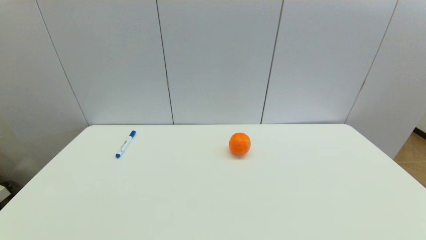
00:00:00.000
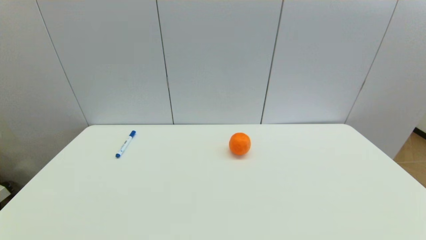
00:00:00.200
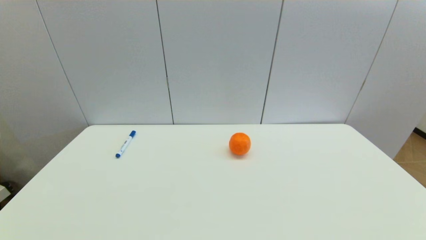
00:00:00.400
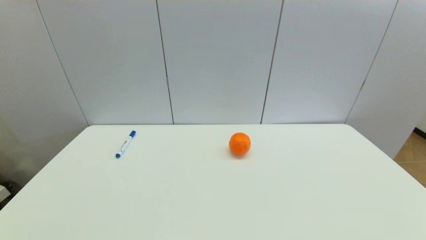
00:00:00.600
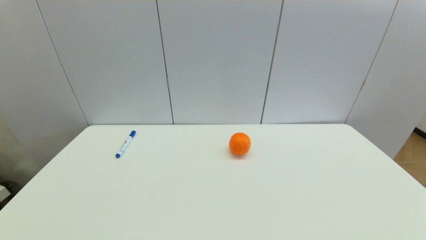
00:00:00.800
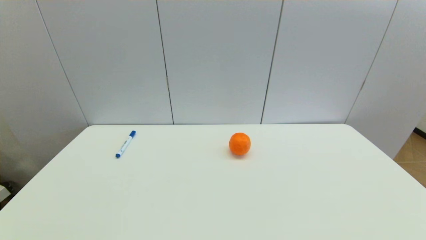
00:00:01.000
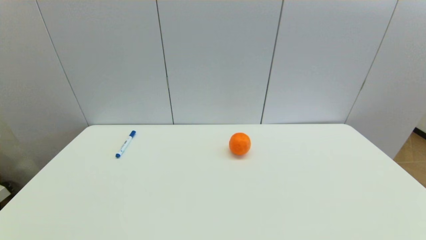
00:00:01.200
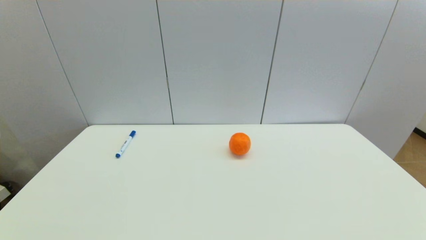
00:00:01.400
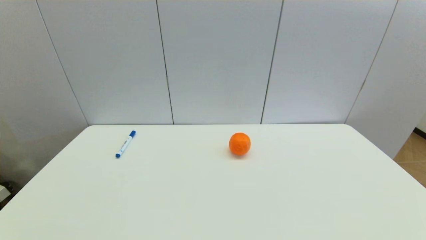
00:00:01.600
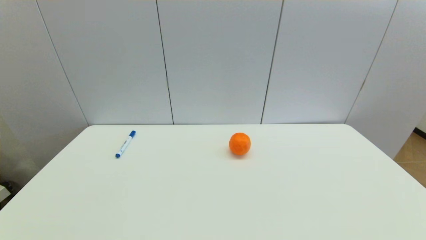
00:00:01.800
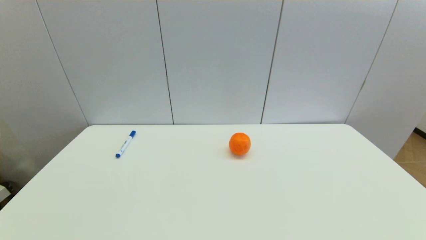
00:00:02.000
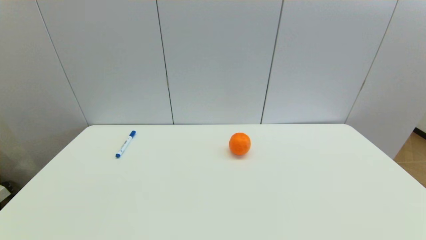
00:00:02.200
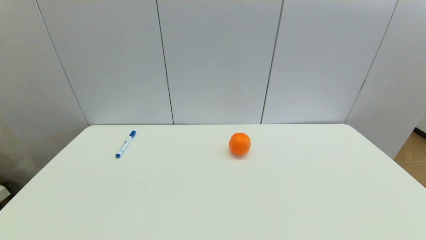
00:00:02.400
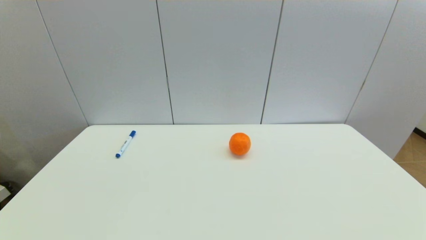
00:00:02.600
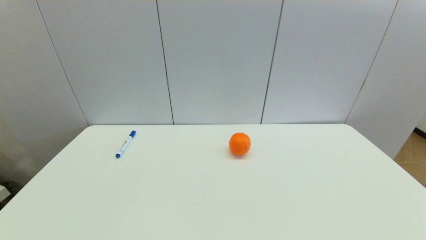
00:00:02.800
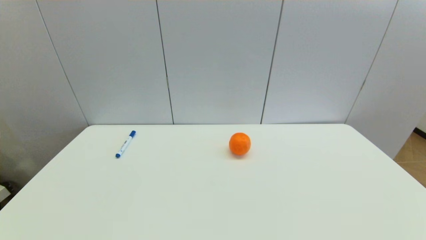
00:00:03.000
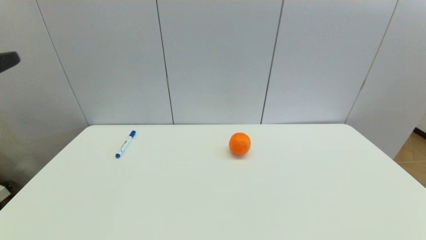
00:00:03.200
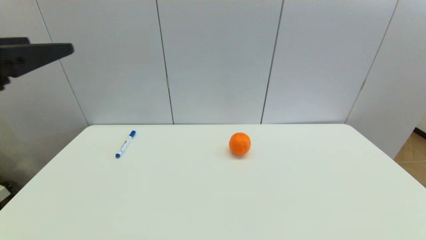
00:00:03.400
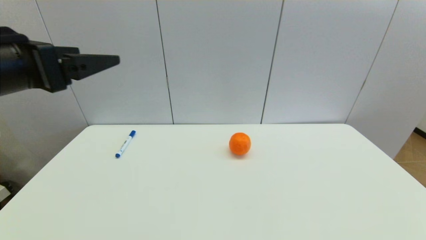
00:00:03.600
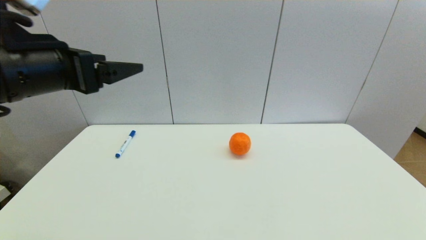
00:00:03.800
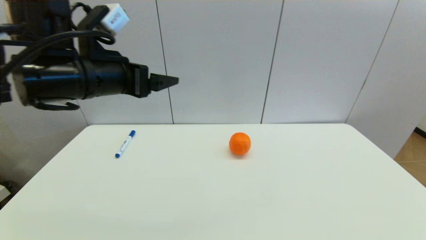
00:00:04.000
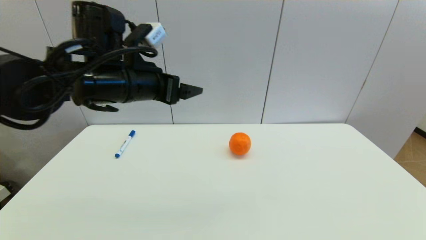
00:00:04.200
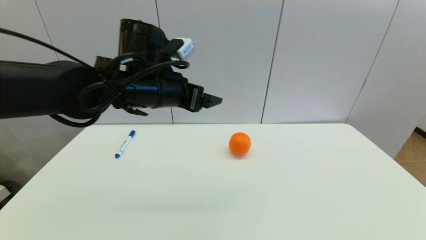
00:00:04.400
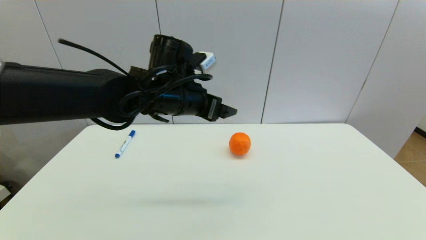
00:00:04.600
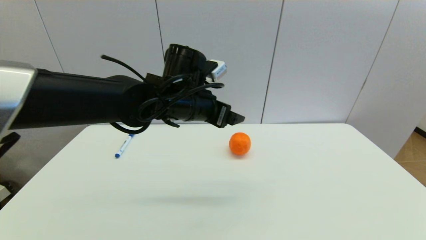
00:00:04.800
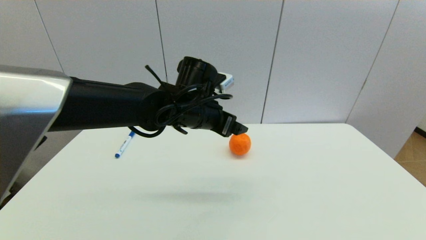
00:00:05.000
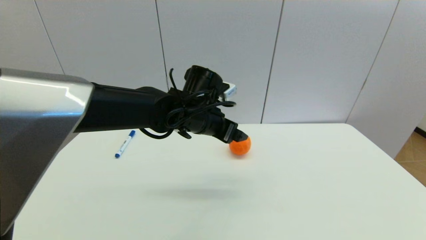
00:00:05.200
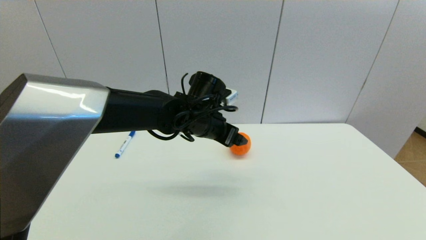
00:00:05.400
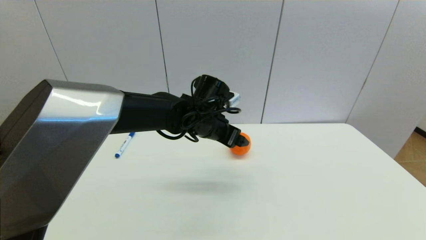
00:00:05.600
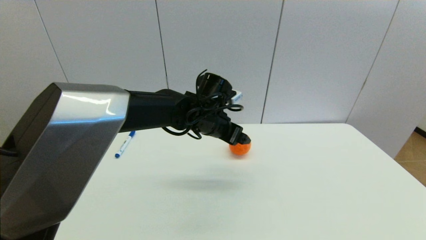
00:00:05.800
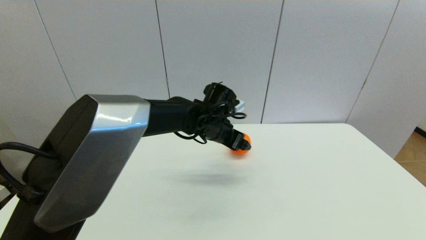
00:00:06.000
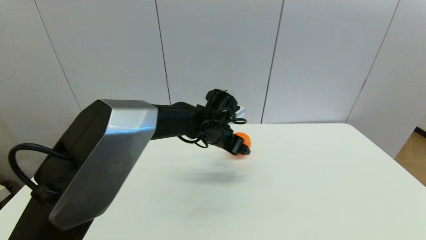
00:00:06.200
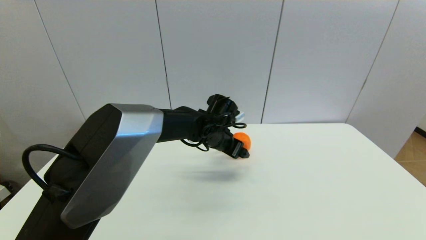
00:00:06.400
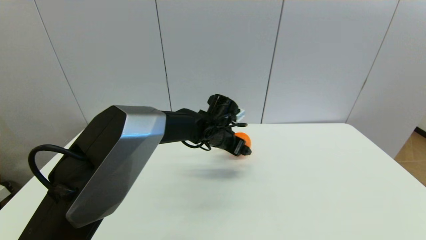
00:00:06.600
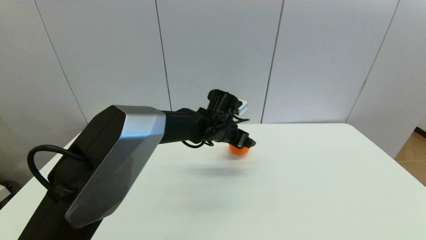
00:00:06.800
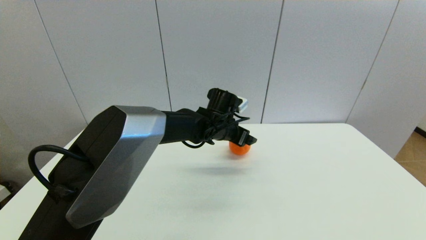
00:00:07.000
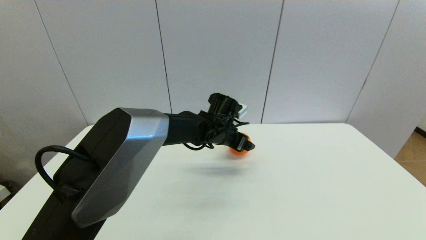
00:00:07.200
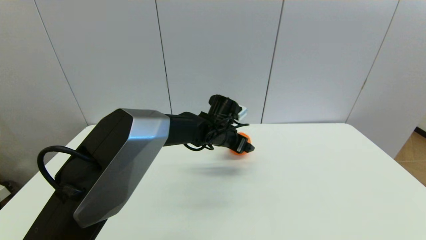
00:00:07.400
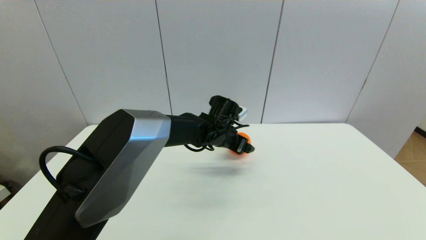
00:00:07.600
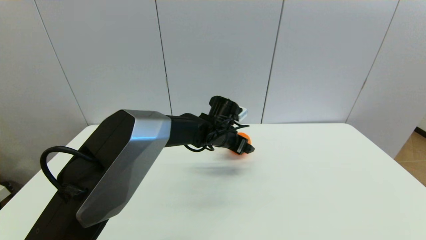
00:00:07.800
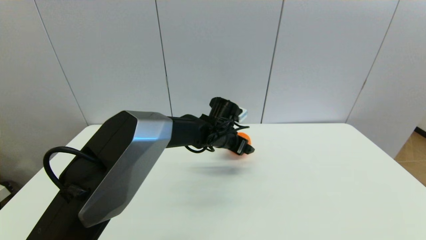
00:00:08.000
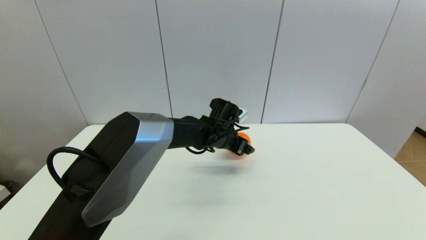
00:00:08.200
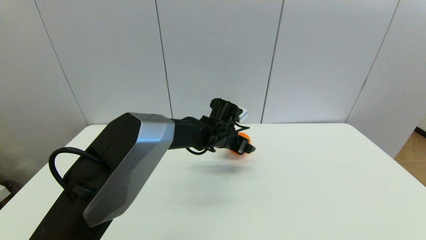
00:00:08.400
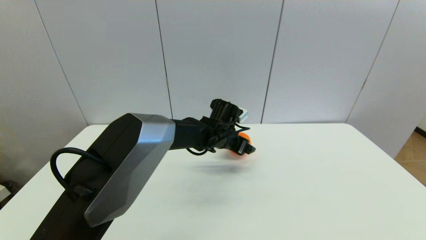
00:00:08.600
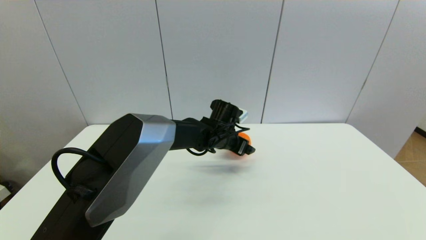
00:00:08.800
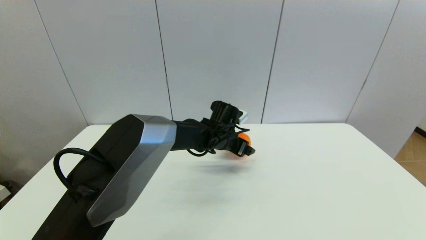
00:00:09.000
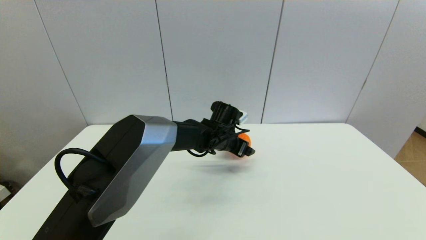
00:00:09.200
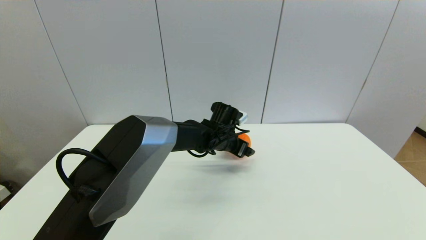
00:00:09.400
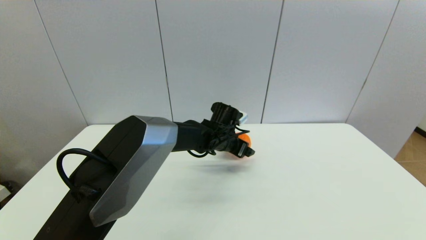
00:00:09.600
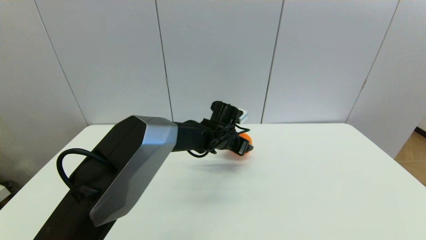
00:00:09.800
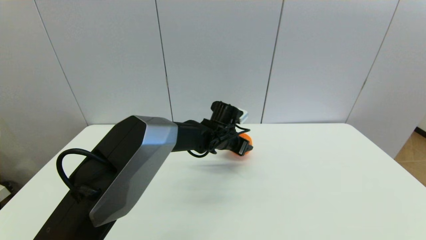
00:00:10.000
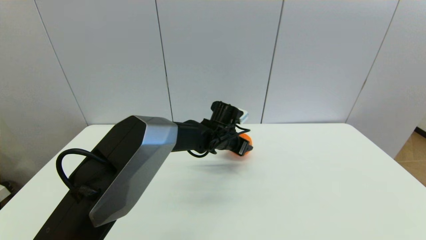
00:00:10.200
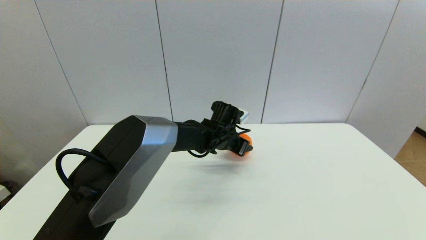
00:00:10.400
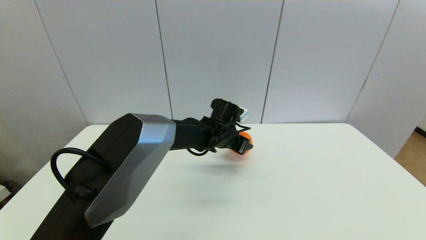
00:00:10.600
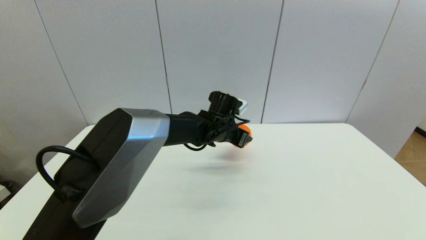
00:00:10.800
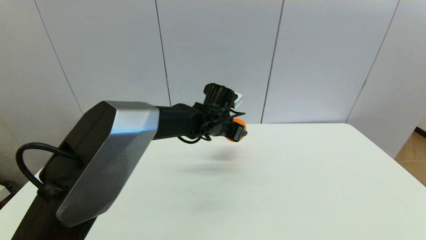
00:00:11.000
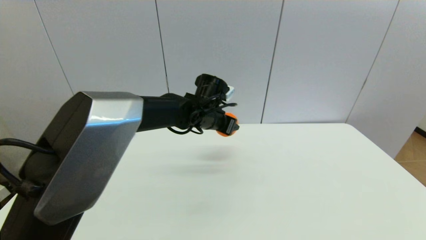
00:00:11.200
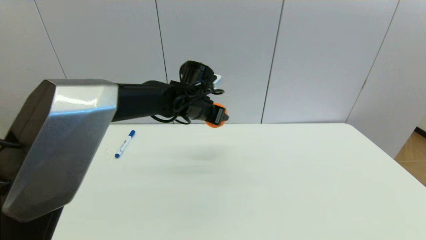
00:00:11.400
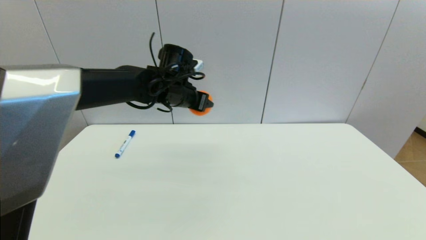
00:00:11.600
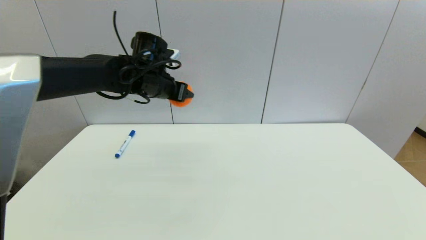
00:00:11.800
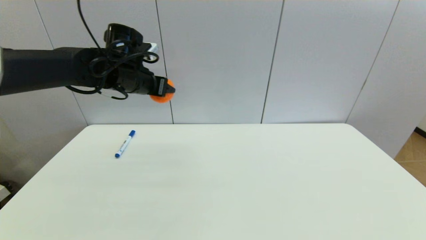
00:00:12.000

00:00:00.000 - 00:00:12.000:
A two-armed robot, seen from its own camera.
Step, 00:00:03.400 - 00:00:10.400: Grasp the orange with left gripper.
00:00:00.000 - 00:00:01.600: The two grippers keep their place.
00:00:03.000 - 00:00:04.400: The left gripper goes about 35 cm forward and to the right.
00:00:04.400 - 00:00:06.000: The left gripper heads downward, to the right and forward, covering approximately 15 cm.
00:00:06.000 - 00:00:07.600: The left gripper ends up some 5 cm from where it was.
00:00:07.600 - 00:00:09.000: The grippers stay close to where they were, moving slightly.
00:00:09.000 - 00:00:10.400: The left gripper closes its fingers.
00:00:10.400 - 00:00:12.000: The left gripper is displaced to the left and upward by approximately 30 cm.

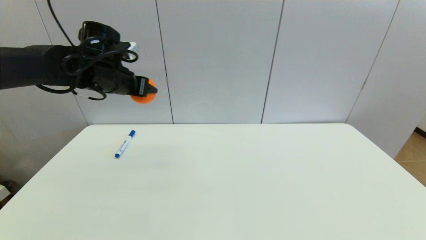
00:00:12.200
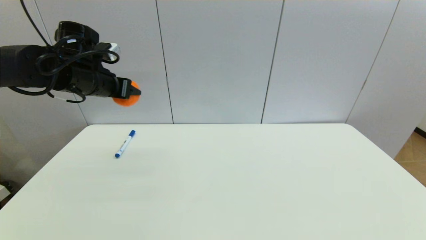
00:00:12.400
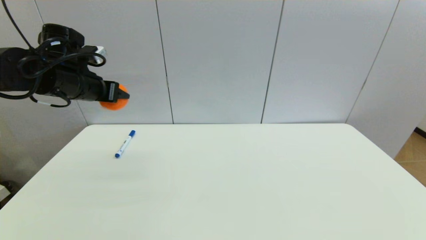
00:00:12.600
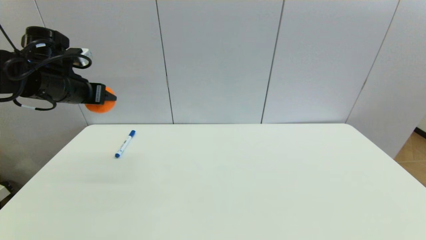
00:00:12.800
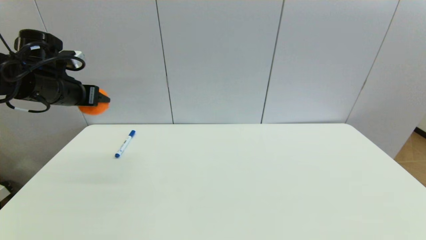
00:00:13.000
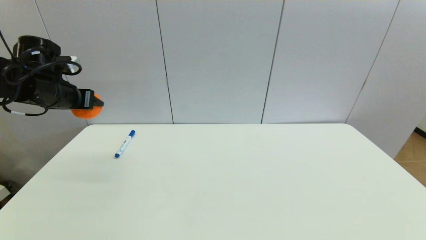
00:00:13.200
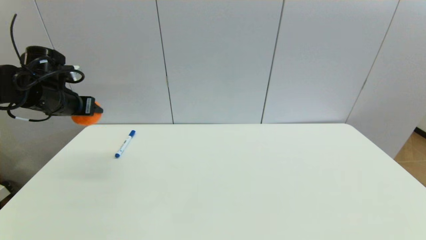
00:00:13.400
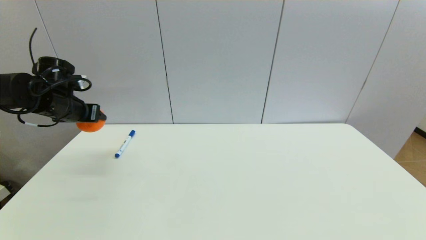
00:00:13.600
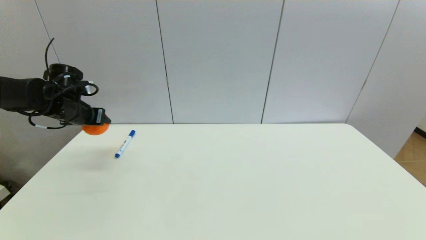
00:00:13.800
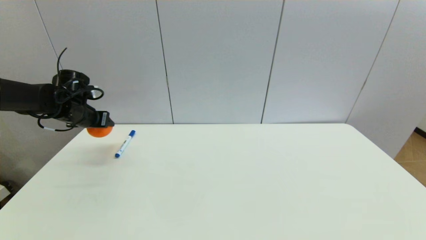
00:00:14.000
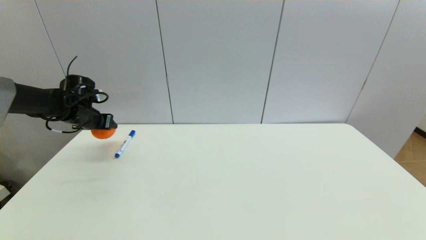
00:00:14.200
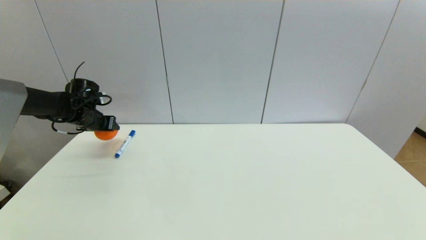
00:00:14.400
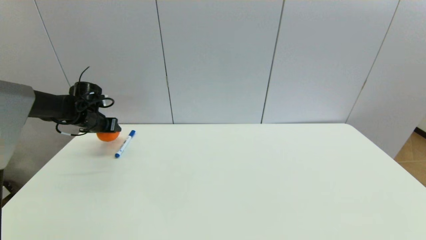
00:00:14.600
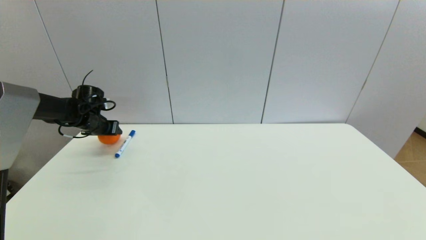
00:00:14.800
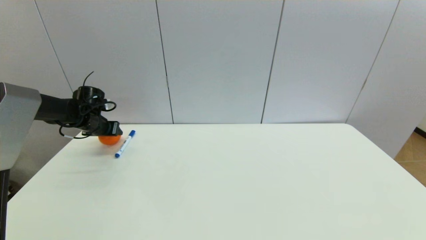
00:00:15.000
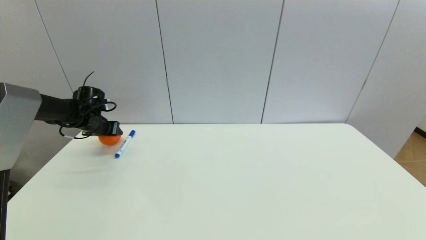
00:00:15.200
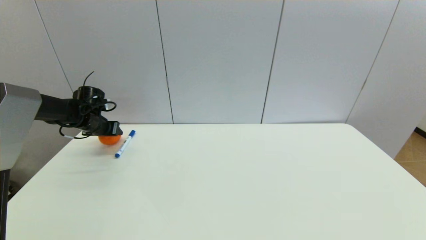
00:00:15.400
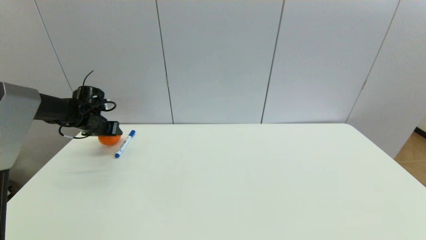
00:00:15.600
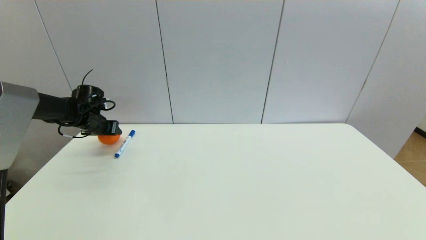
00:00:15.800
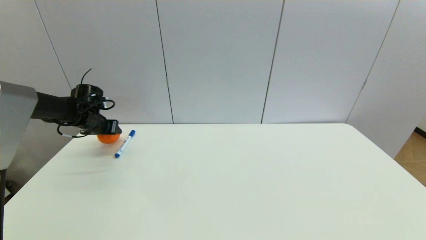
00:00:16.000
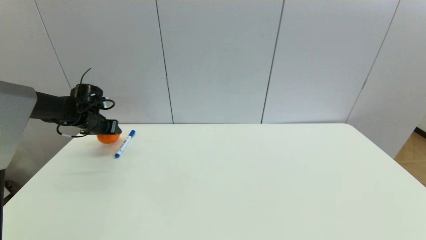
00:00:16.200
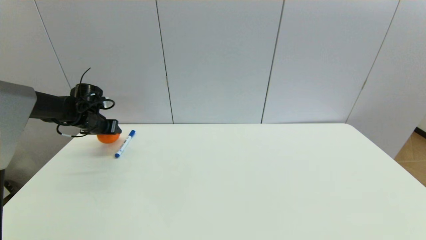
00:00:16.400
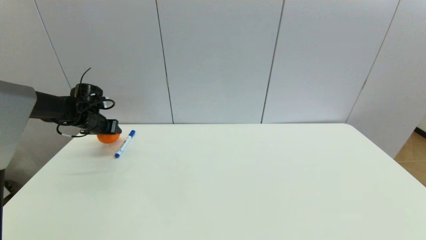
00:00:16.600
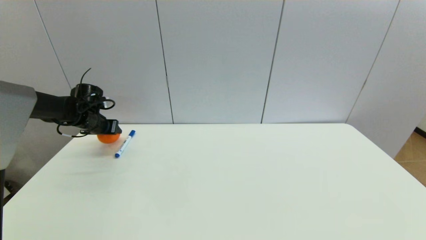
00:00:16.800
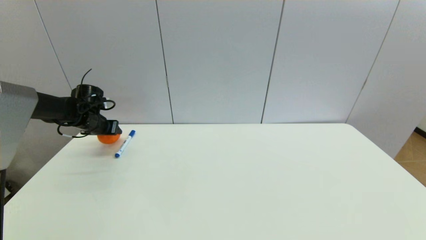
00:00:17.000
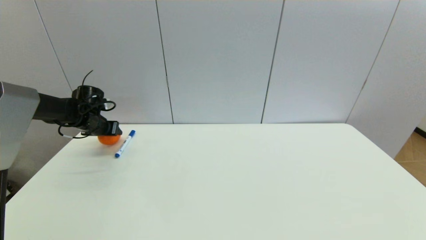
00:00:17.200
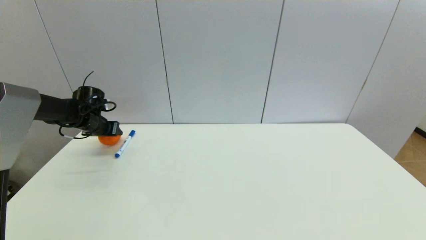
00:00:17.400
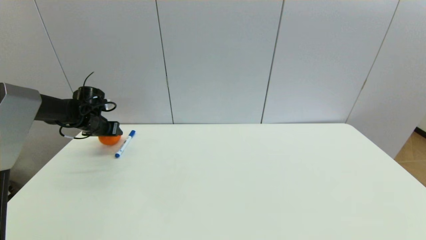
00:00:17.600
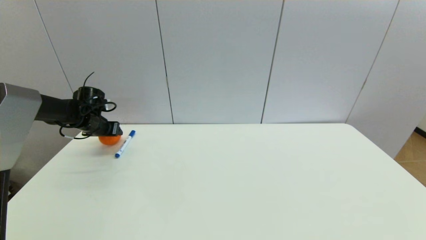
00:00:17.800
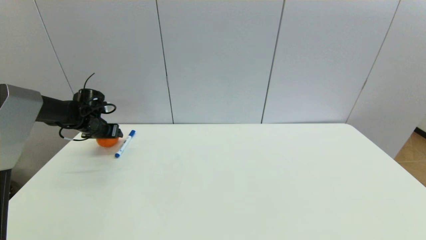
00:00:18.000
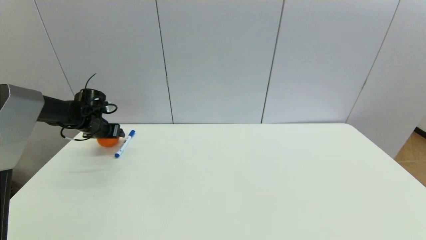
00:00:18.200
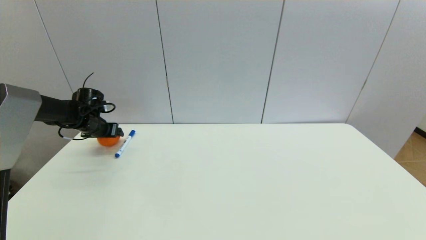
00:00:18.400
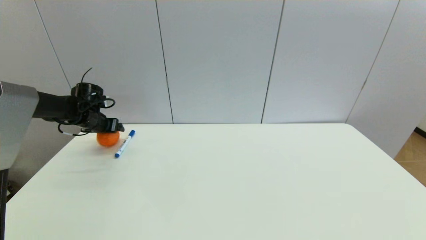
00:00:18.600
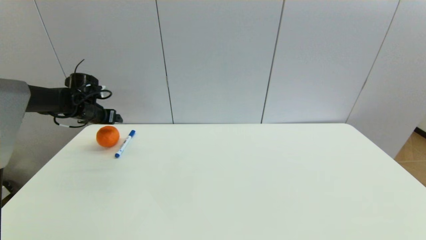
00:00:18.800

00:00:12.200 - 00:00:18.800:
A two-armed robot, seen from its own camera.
Step, 00:00:12.200 - 00:00:18.400: Place the orange on the table with left gripper.
00:00:12.200 - 00:00:13.800: The left gripper heads to the left and downward, covering about 15 cm.
00:00:13.800 - 00:00:15.400: The left gripper heads downward and forward, covering roughly 10 cm.
00:00:15.400 - 00:00:17.200: The two grippers keep their place.
00:00:17.200 - 00:00:18.800: The left gripper opens up.
